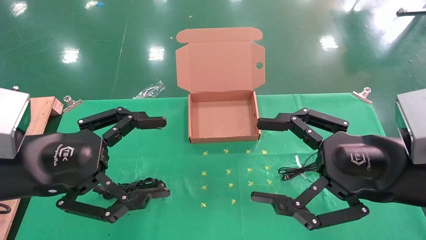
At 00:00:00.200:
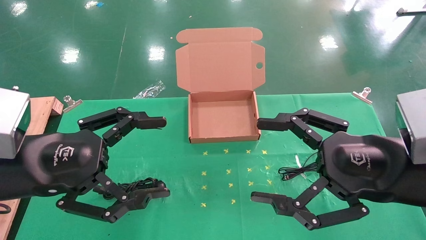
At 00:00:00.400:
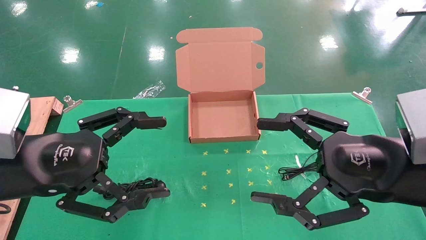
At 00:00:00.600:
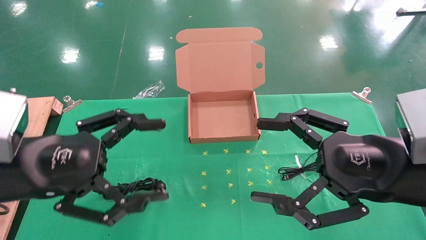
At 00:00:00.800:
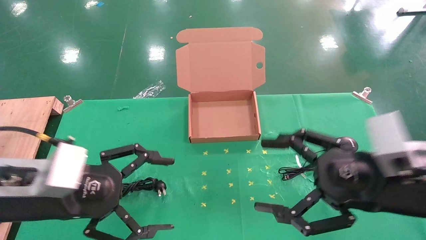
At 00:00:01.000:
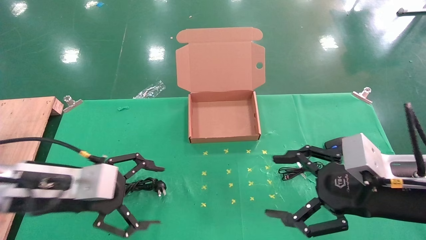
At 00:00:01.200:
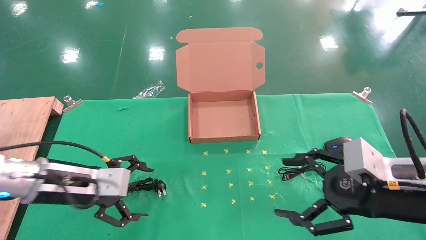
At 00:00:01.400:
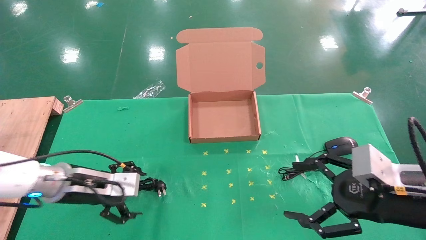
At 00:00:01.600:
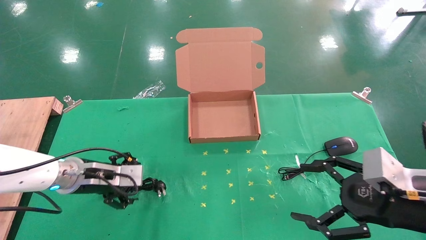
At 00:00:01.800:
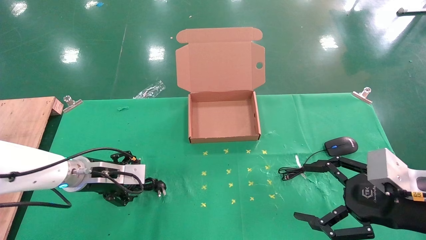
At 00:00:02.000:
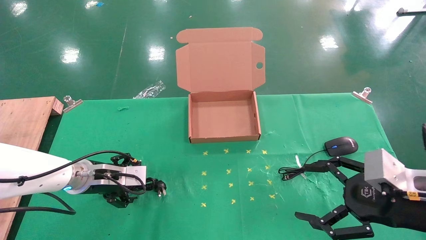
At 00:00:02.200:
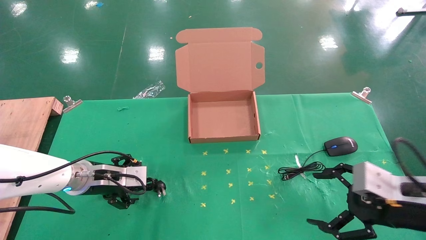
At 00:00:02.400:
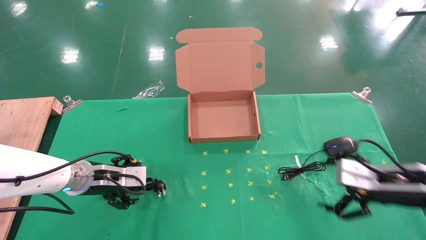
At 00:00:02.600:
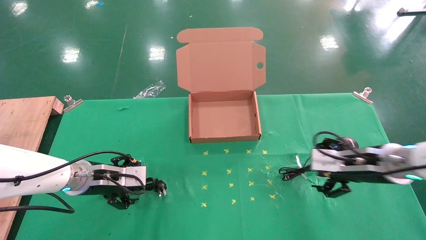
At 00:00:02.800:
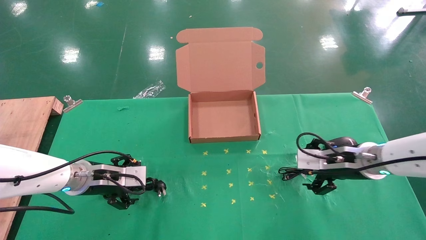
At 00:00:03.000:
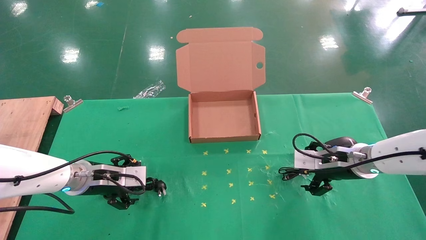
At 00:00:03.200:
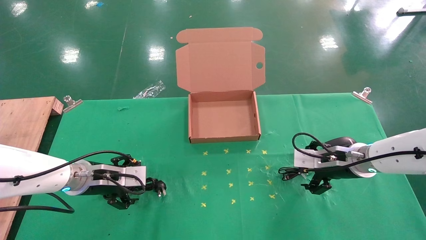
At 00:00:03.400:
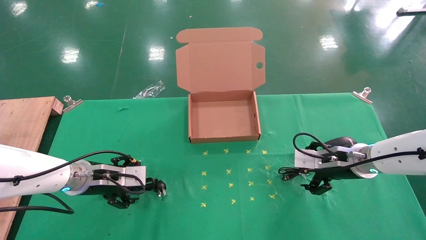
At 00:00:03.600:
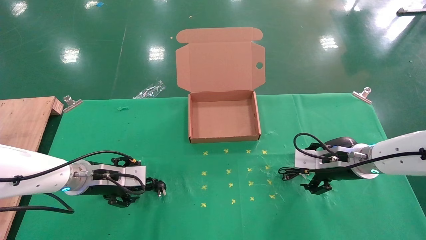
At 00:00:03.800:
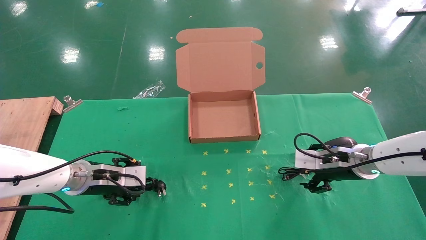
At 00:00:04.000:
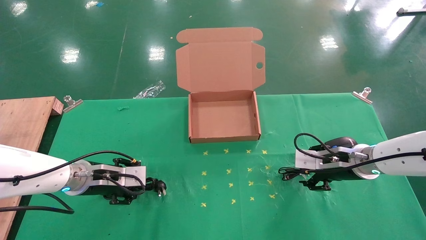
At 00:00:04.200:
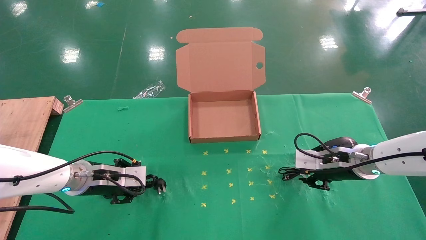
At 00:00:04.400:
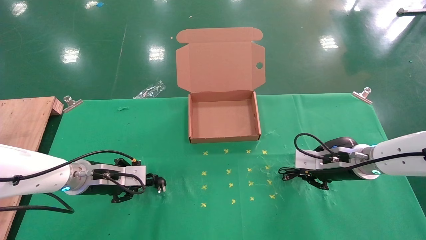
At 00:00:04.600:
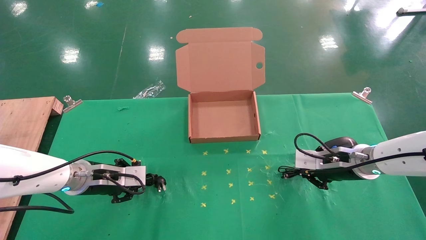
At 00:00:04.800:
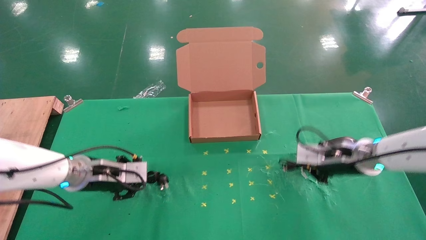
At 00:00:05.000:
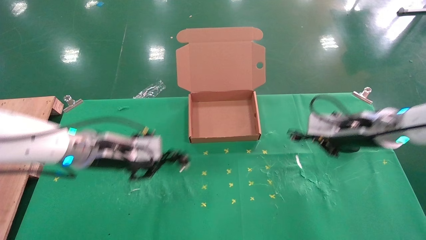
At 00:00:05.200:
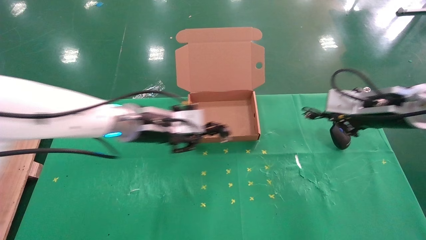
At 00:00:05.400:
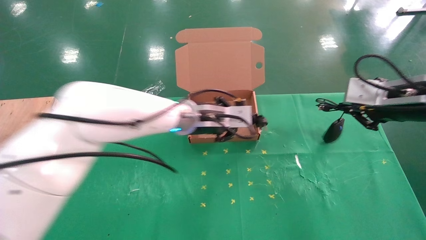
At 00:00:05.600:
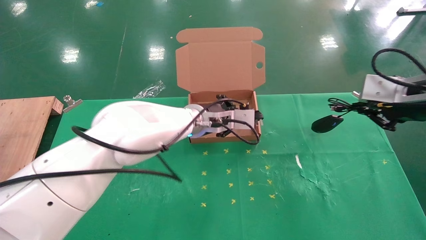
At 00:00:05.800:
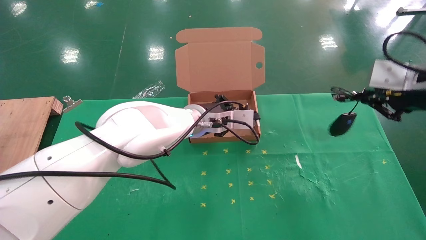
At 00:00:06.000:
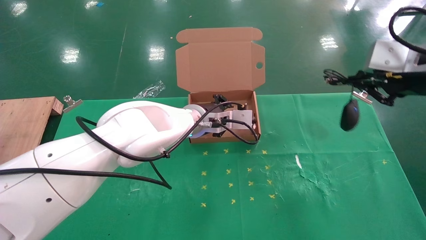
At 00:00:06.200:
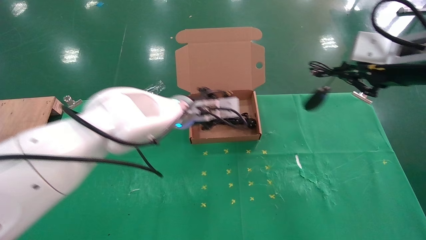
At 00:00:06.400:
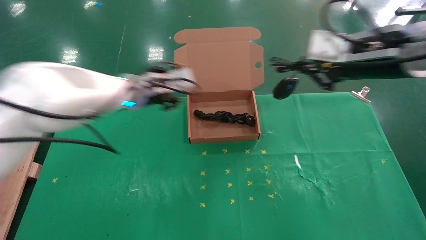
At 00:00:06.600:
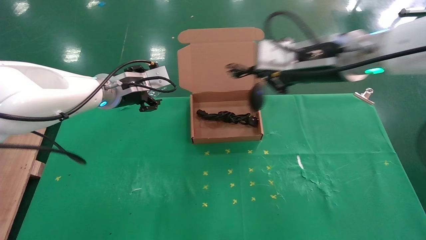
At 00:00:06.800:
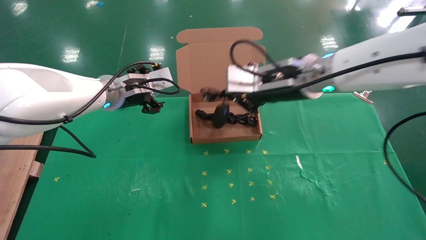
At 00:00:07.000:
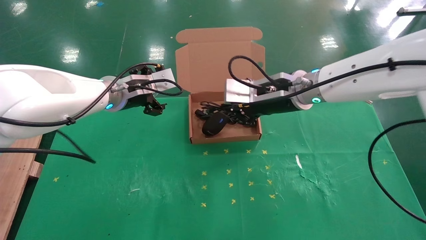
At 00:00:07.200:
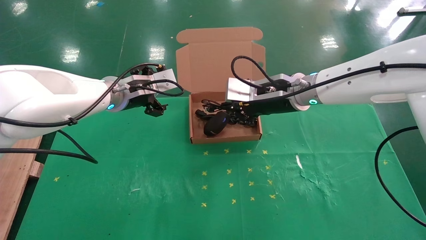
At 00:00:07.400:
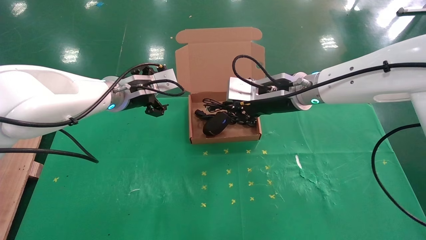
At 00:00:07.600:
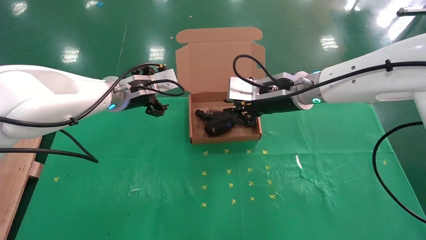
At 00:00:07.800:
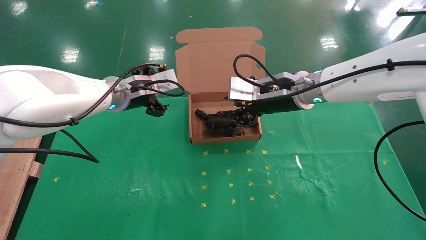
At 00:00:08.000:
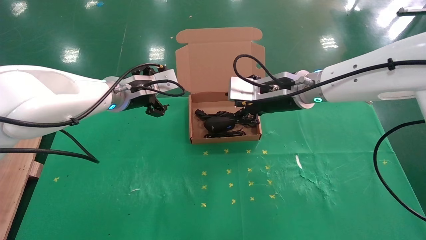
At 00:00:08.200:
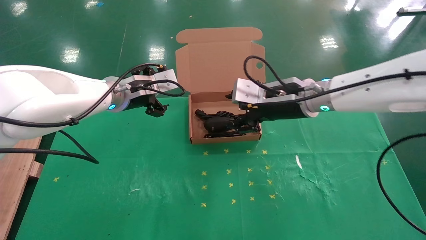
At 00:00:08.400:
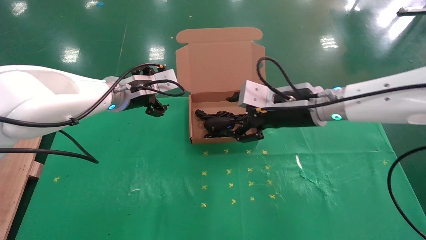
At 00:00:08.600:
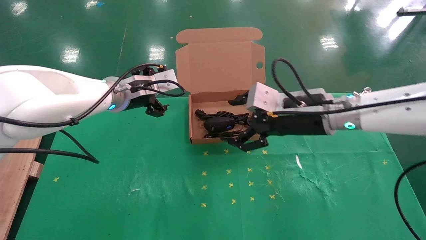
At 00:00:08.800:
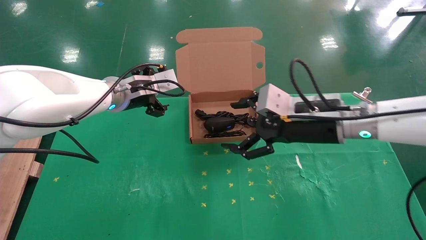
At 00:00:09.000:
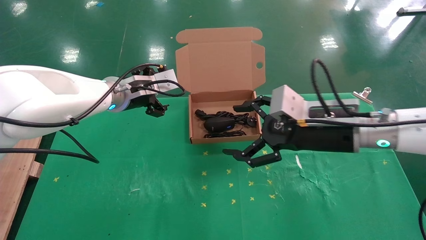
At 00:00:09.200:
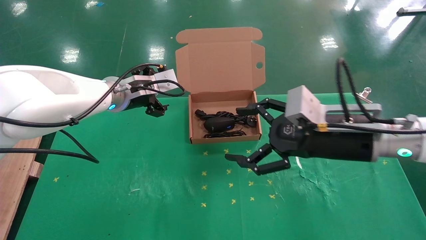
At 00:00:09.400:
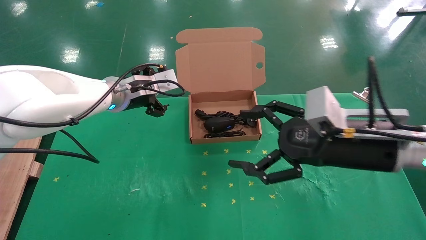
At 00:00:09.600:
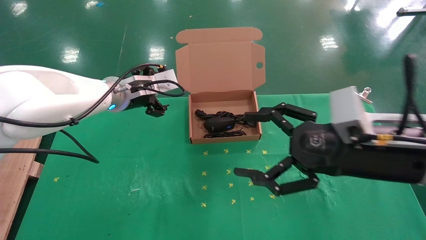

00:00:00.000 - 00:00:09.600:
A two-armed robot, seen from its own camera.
Task of the whole recording: grasp data cable left put into box grasp mouse right put into box.
Step, 00:00:01.000 - 00:00:04.800: Simultaneously pick up the mouse and power cord from the accessory packaging area.
Step, 00:00:05.000 - 00:00:07.600: Place the mouse and power cord into the box.
00:00:00.000 - 00:00:01.600: The left gripper shifts approximately 20 cm forward and downward, while the right gripper heads downward and to the right, covering approximately 10 cm.
00:00:01.600 - 00:00:03.200: The right gripper goes roughly 20 cm forward.
00:00:03.200 - 00:00:04.800: The left gripper closes up. Meanwhile the right gripper closes.
00:00:04.800 - 00:00:06.400: The left gripper is displaced upward, to the right and forward by some 15 cm, while the right gripper moves upward, about 20 cm.
00:00:06.400 - 00:00:08.000: The left gripper opens. The right gripper goes approximately 15 cm to the left, downward and forward.
00:00:08.000 - 00:00:09.600: The right gripper heads backward and to the right, covering some 20 cm, and opens.

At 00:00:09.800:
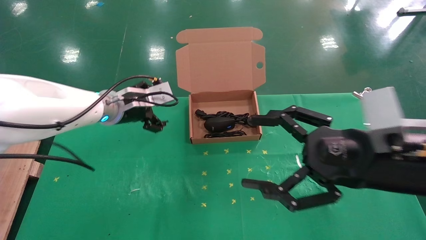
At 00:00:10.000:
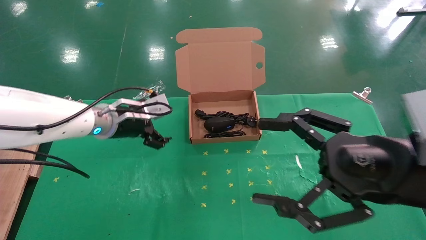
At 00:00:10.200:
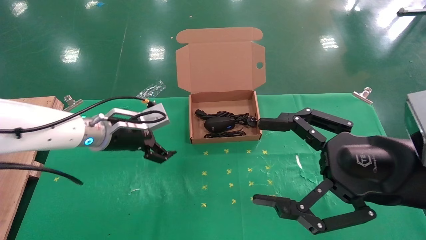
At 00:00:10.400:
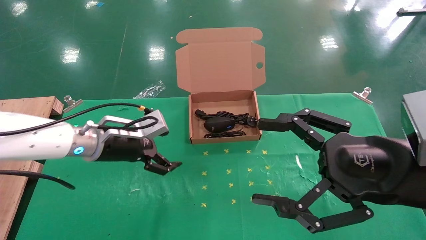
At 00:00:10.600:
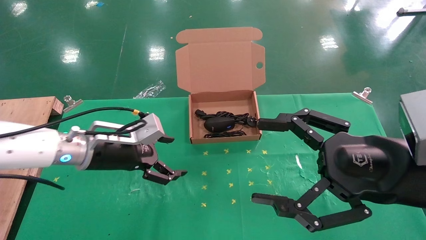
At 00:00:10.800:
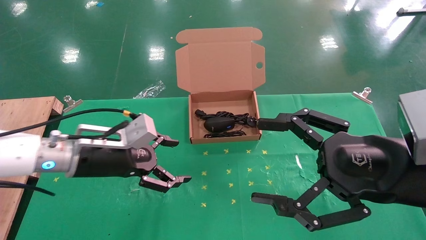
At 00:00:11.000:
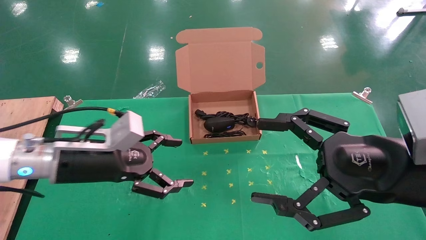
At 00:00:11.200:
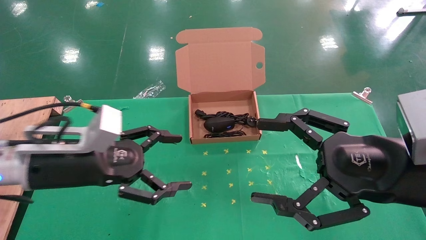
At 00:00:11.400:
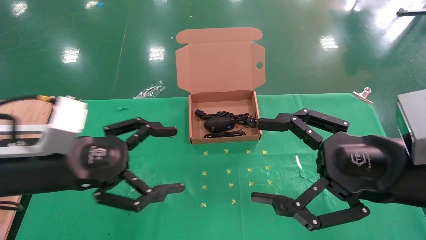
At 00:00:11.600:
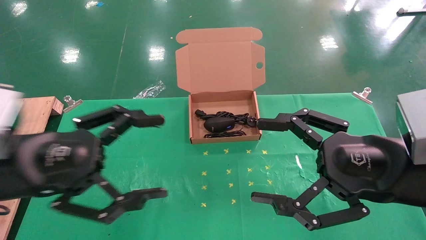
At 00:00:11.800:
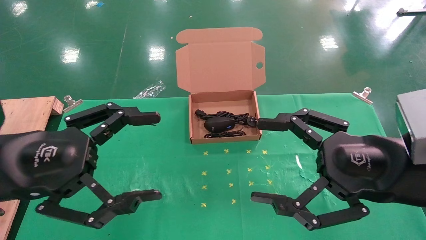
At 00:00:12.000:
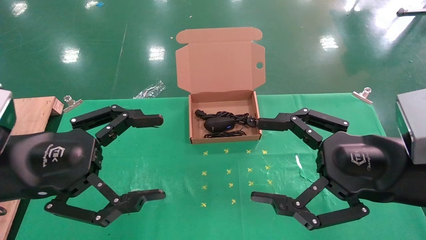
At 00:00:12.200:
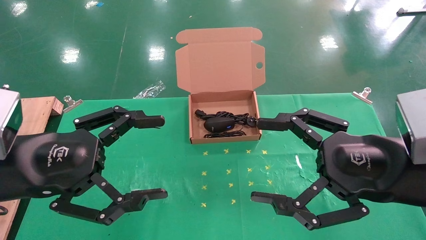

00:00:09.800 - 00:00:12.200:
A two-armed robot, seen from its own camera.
Task of the whole recording: grasp data cable left put into box grasp mouse right put into box.
00:00:09.800 - 00:00:11.000: The left gripper shifts roughly 15 cm backward.
00:00:11.000 - 00:00:12.200: The left gripper goes about 10 cm backward and upward.
